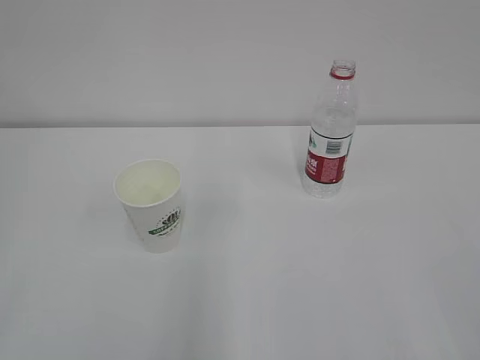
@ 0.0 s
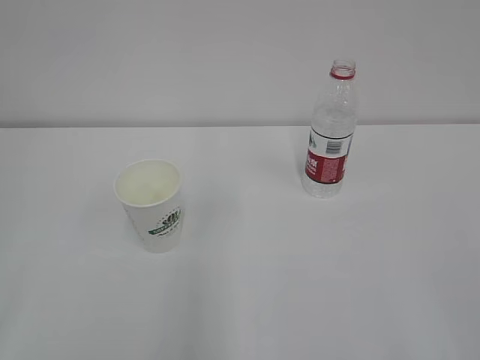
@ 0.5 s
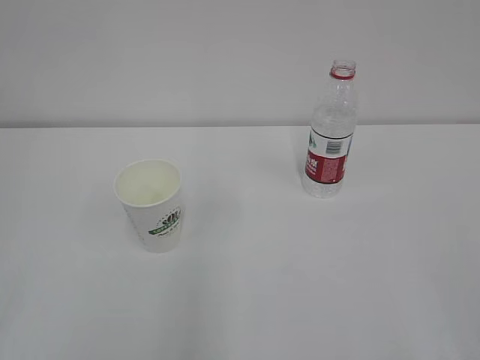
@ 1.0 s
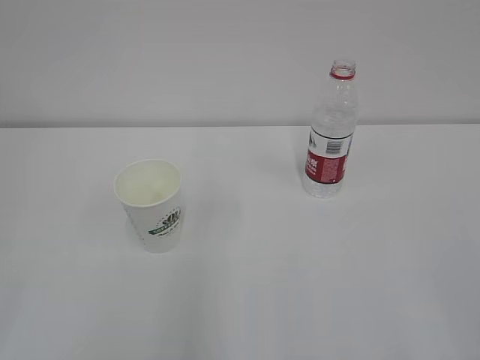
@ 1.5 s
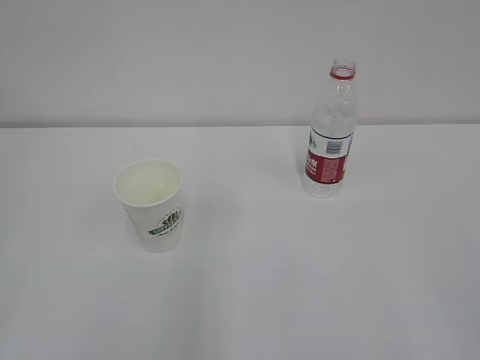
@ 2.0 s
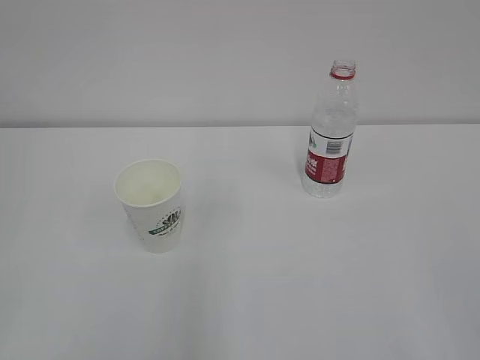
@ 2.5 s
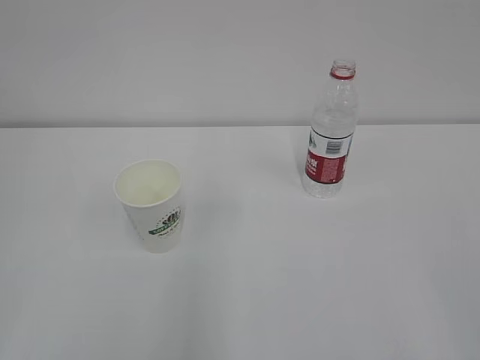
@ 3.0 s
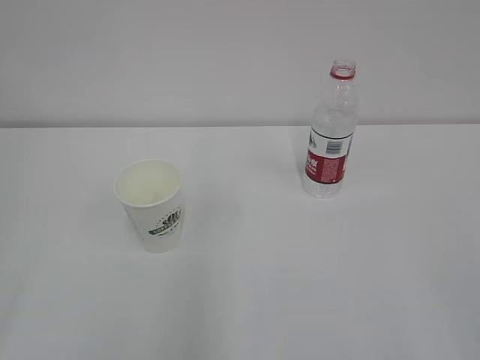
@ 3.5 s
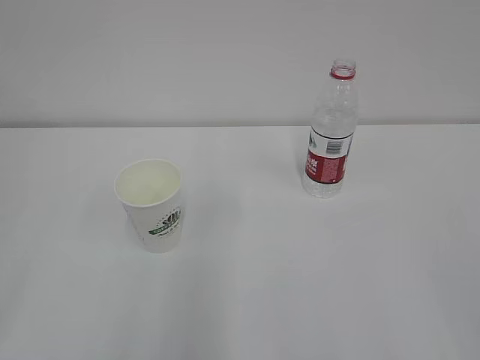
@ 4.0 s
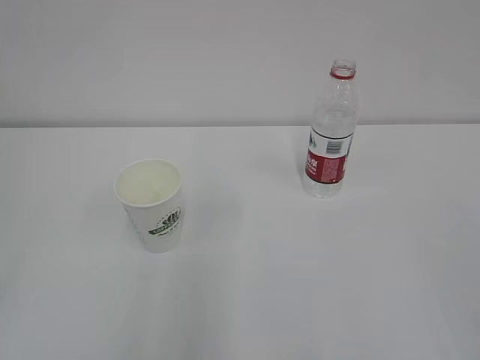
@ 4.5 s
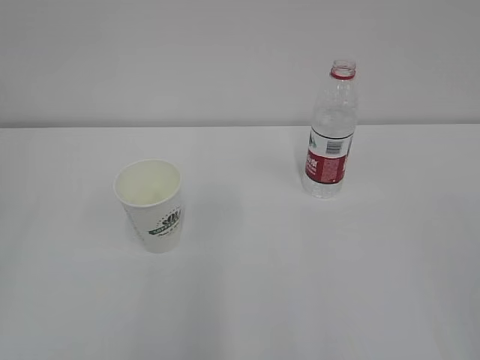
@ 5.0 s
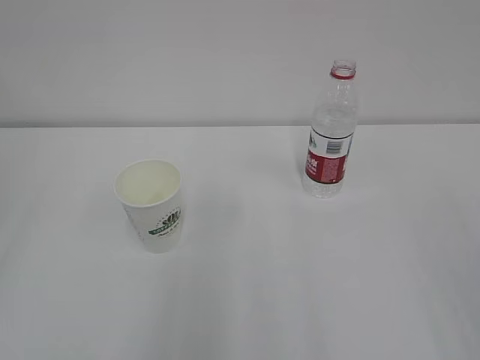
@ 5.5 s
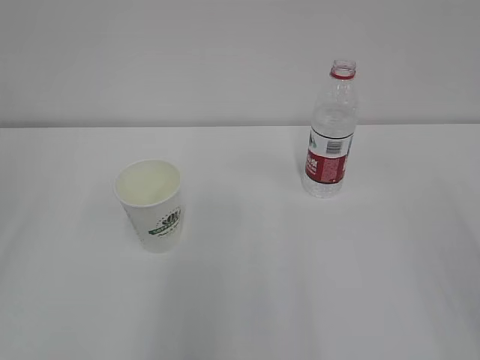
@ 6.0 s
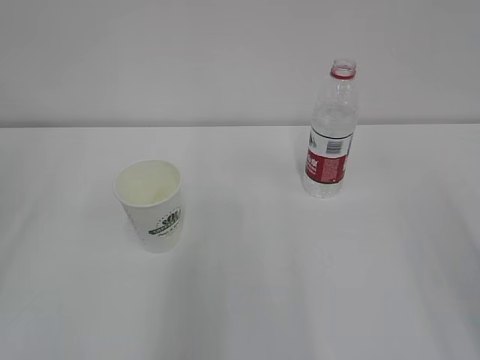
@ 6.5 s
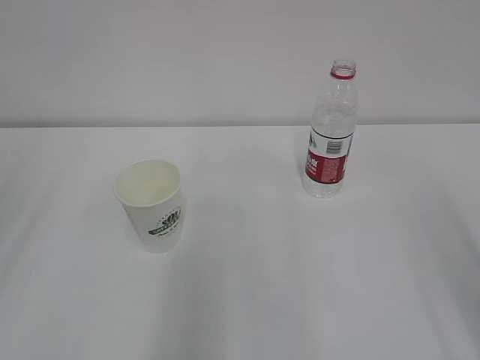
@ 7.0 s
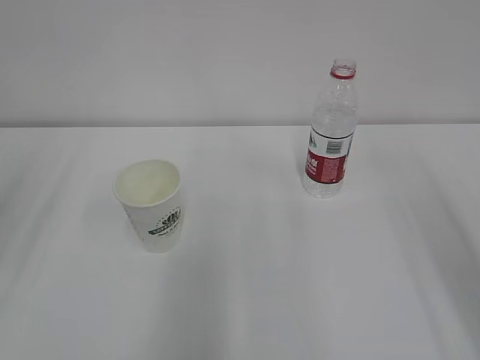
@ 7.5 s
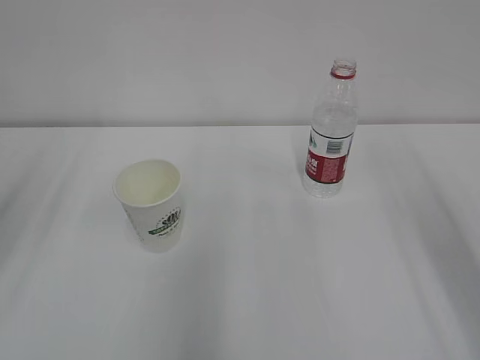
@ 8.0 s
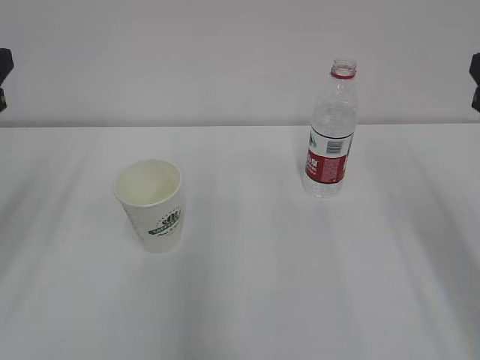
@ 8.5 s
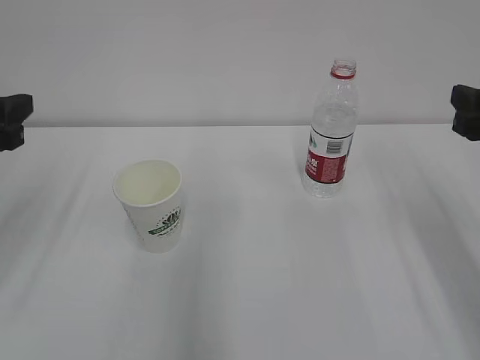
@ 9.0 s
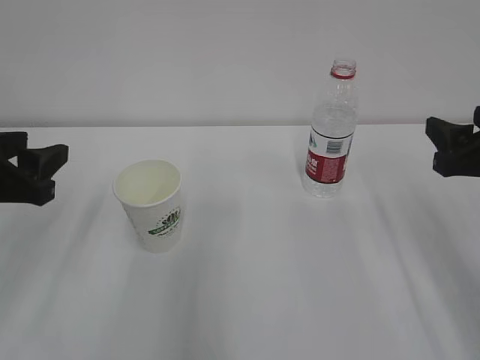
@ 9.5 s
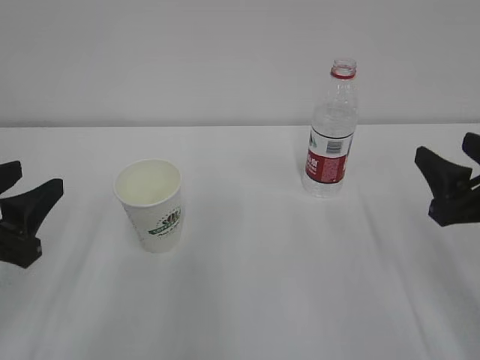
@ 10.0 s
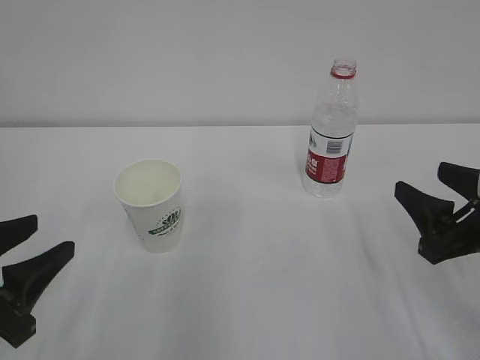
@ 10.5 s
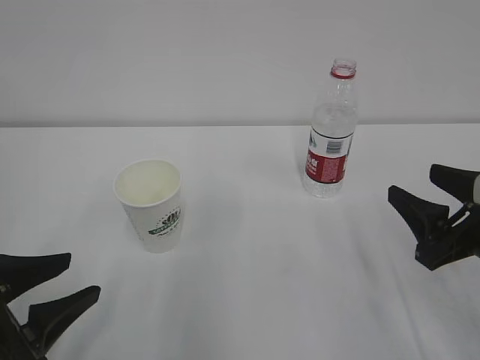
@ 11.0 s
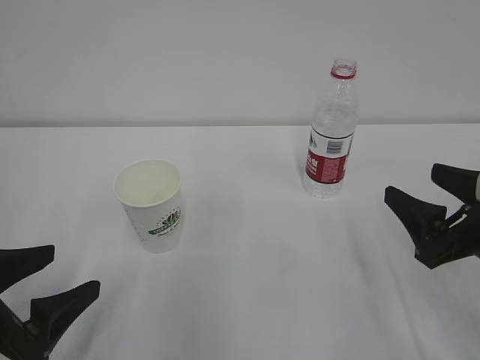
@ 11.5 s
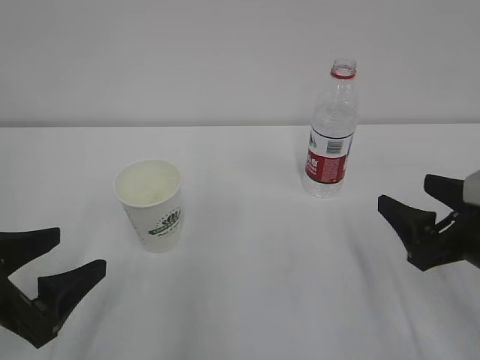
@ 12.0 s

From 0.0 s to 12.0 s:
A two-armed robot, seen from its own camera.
From 8.0 s to 10.0 s: The two grippers go about 15 cm downward.
From 10.0 s to 12.0 s: The left gripper changes place by roughly 5 cm, and opens up. Meanwhile the right gripper opens up.

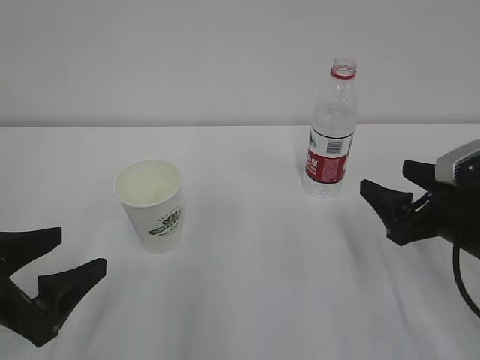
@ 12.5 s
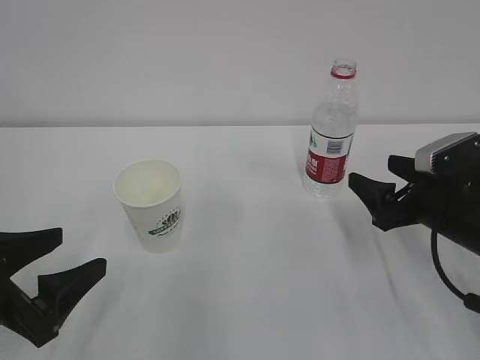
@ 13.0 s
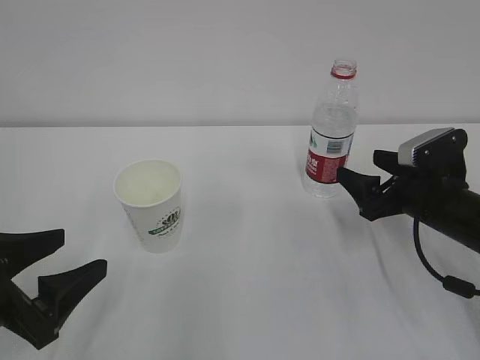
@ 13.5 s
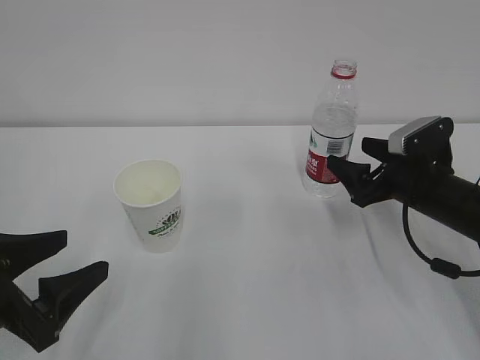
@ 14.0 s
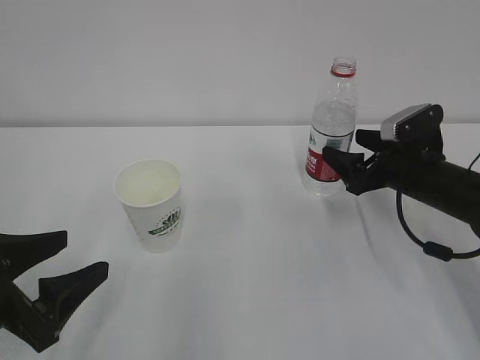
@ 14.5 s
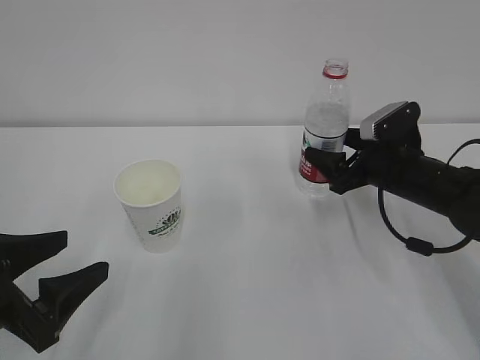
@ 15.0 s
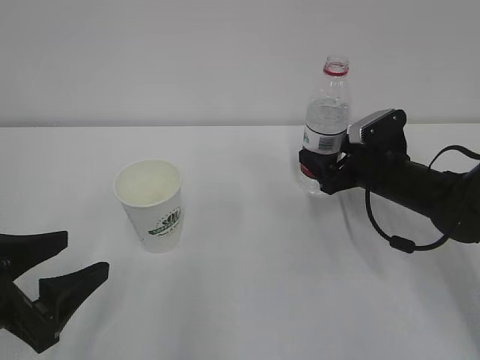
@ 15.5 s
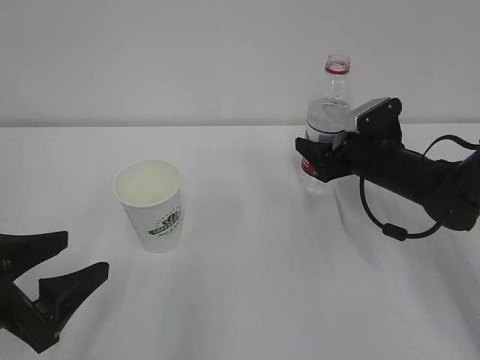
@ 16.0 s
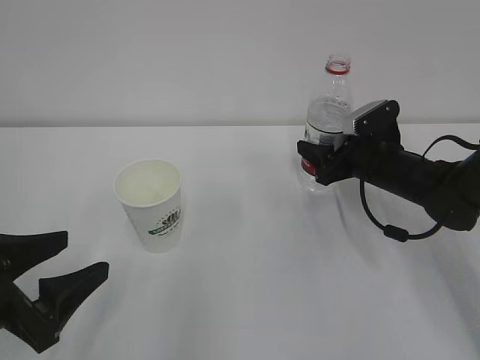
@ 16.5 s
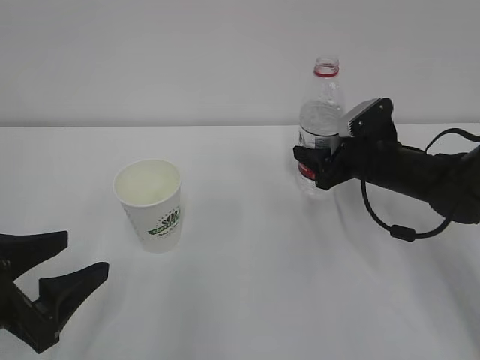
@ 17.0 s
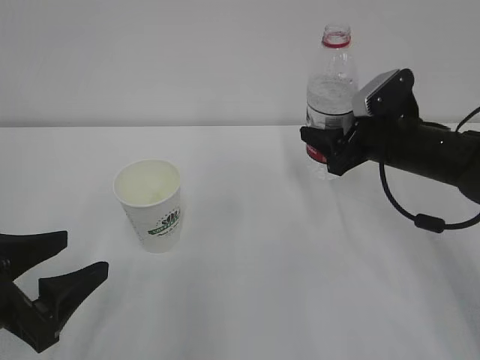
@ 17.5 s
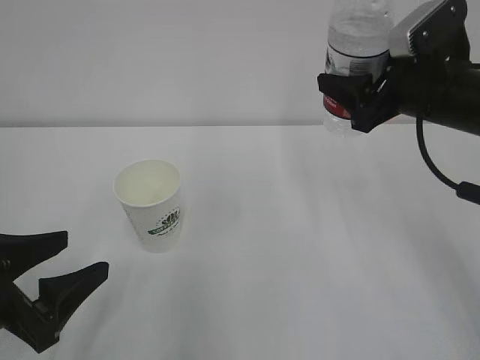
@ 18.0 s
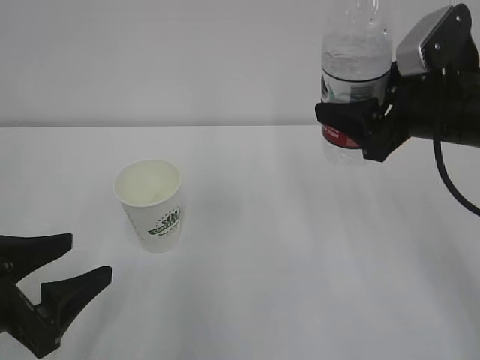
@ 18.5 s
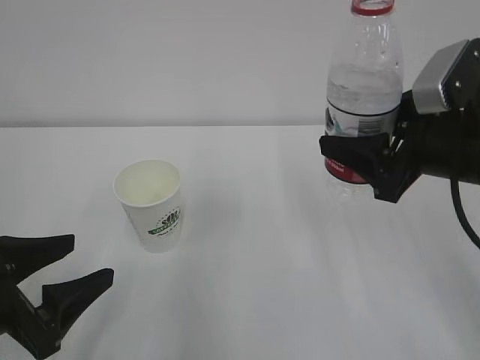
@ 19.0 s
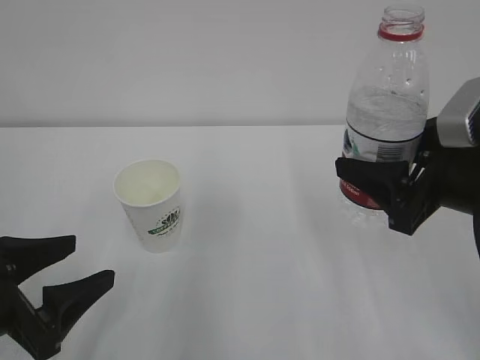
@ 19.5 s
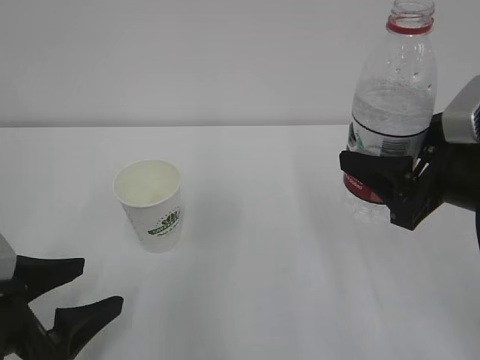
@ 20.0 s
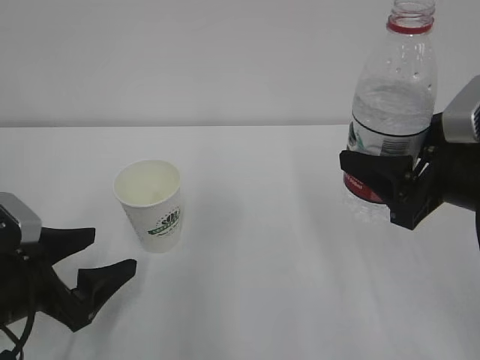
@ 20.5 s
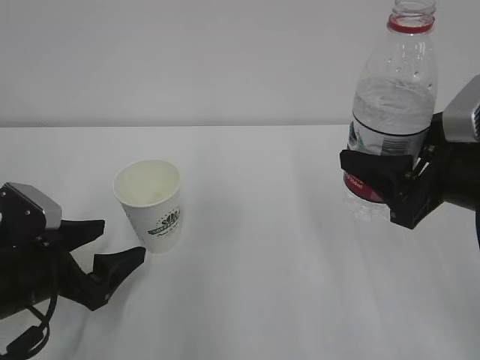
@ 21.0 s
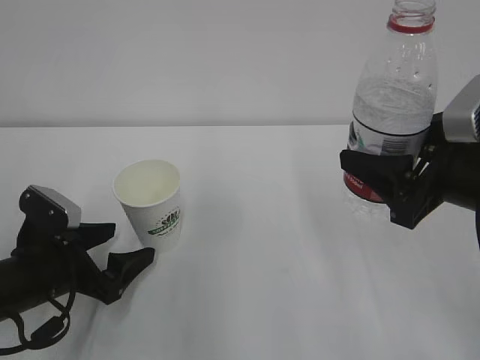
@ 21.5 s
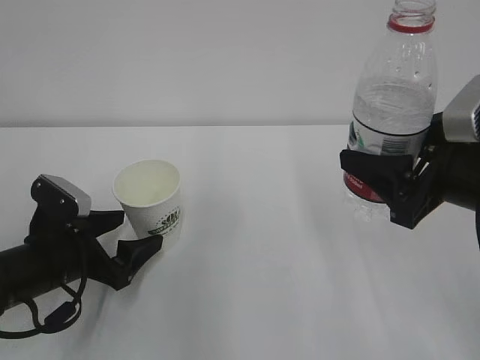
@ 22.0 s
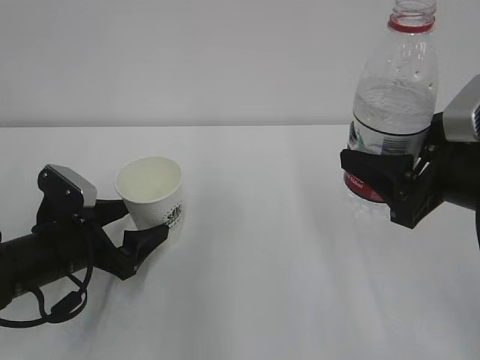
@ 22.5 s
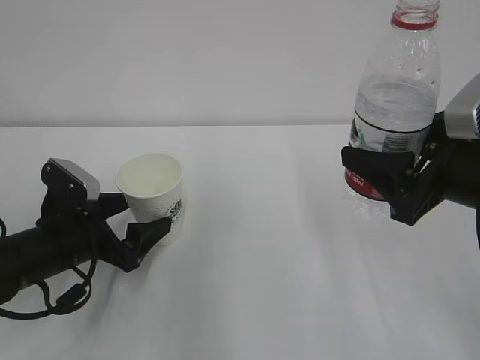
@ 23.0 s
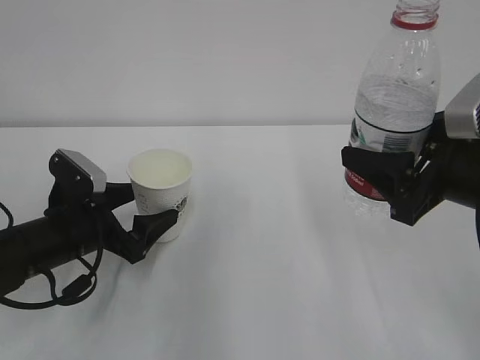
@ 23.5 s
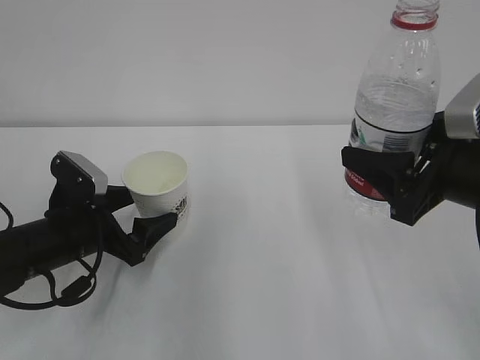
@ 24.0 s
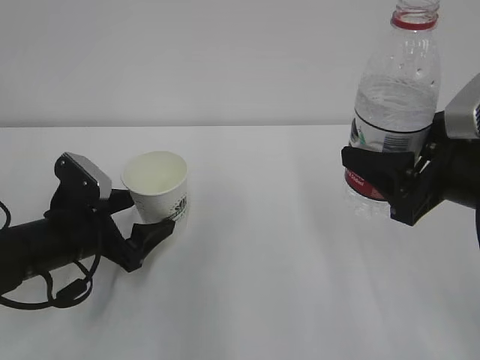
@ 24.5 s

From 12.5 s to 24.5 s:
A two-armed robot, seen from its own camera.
From 12.5 s to 14.5 s: The right gripper heads forward, covering roughly 10 cm.
From 14.5 s to 16.5 s: The right gripper moves about 5 cm, and closes.
From 16.5 s to 18.5 s: The right gripper heads upward and backward, covering some 20 cm.
From 18.5 s to 20.5 s: The right gripper shifts approximately 5 cm backward; the left gripper opens up.
From 20.5 s to 22.5 s: The left gripper goes approximately 5 cm forward.
From 22.5 s to 24.5 s: The grippers make only small movements.

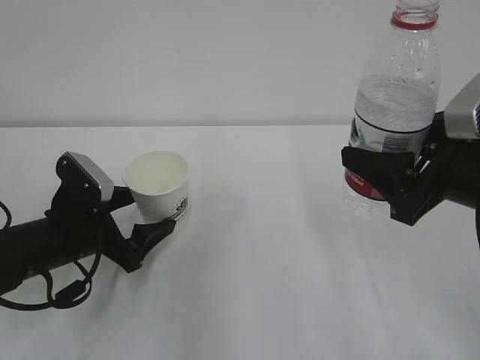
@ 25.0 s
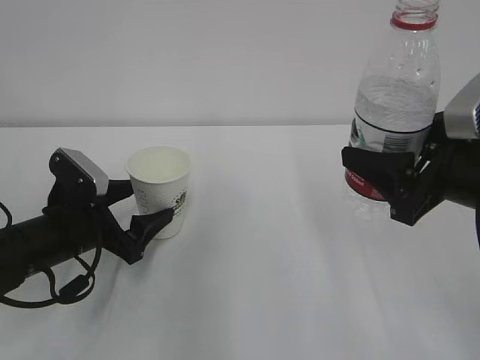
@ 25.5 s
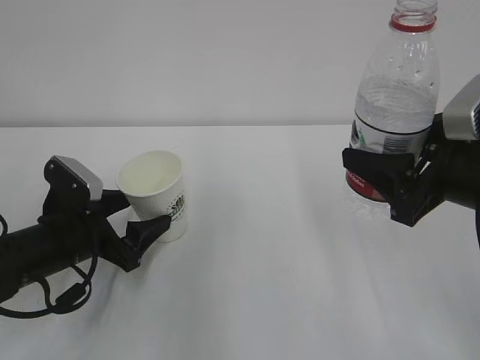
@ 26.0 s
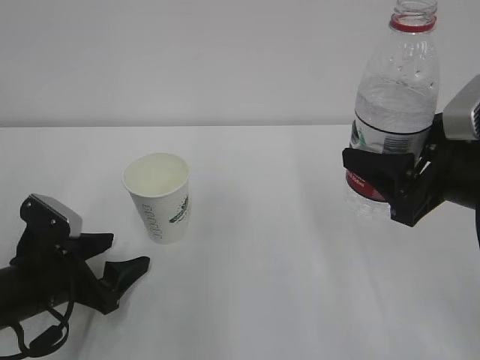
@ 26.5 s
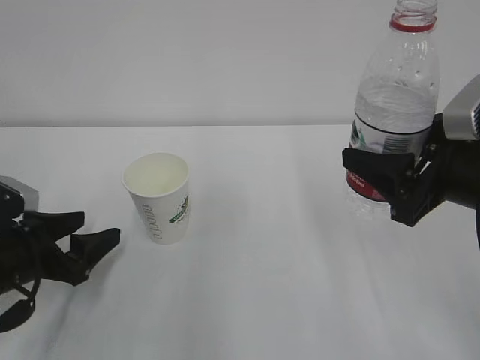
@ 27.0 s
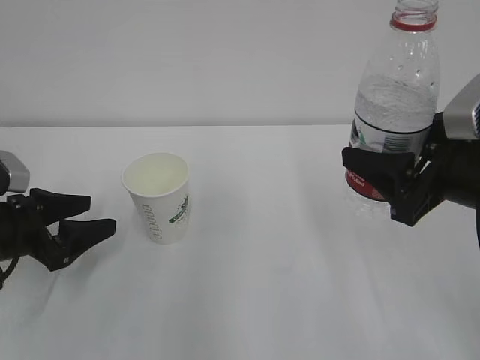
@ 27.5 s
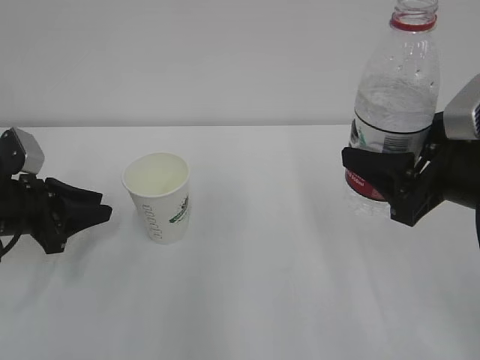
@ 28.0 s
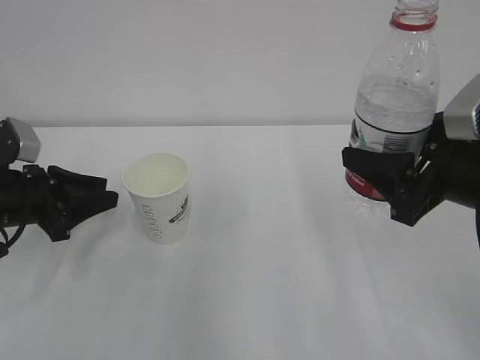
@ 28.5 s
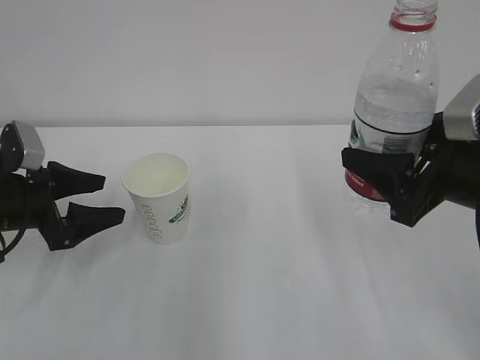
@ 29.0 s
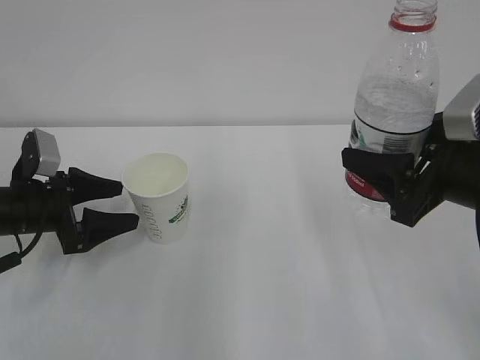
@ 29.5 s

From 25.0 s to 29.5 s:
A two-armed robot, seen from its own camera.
From 25.0 s to 27.0 s: The left gripper moves to the left, approximately 5 cm.
From 27.0 s to 29.5 s: The left gripper heads forward, covering some 10 cm, and closes and opens again.
